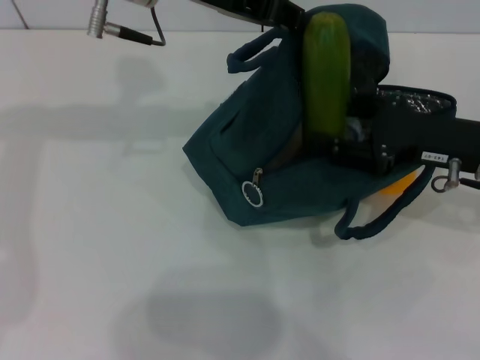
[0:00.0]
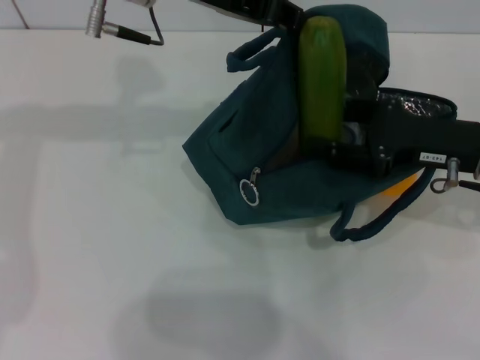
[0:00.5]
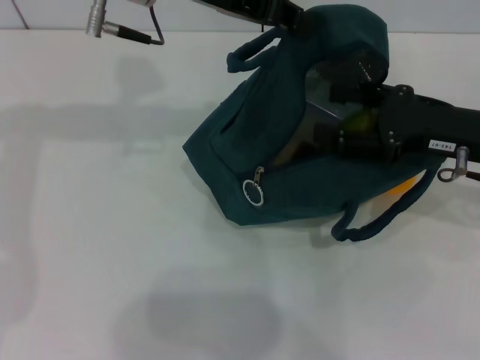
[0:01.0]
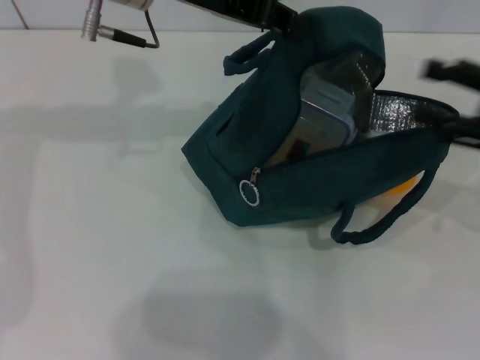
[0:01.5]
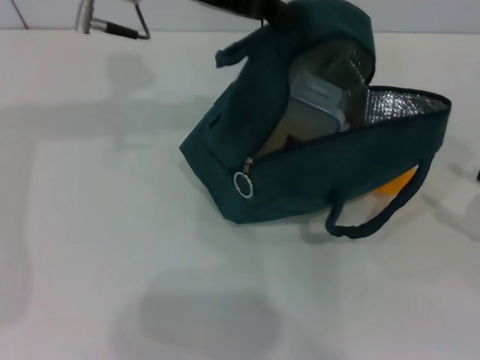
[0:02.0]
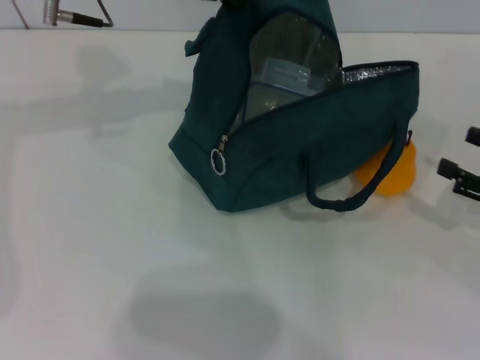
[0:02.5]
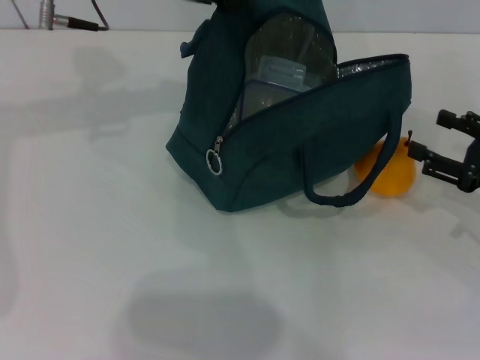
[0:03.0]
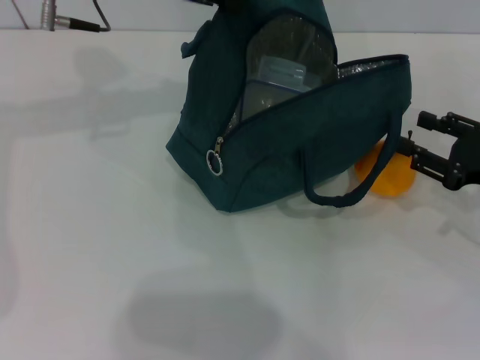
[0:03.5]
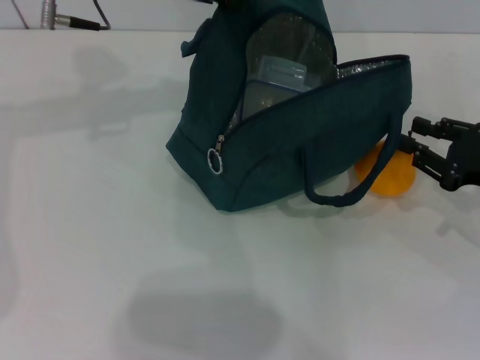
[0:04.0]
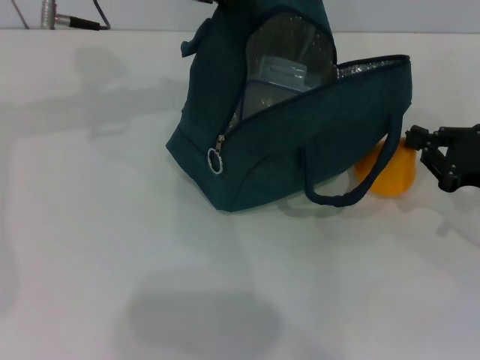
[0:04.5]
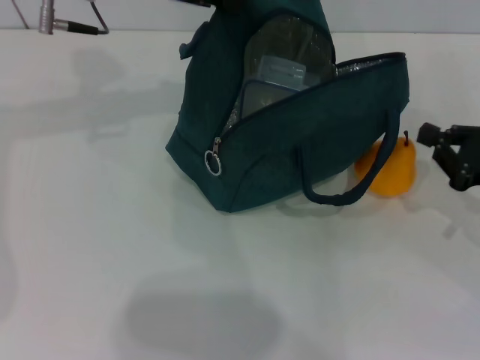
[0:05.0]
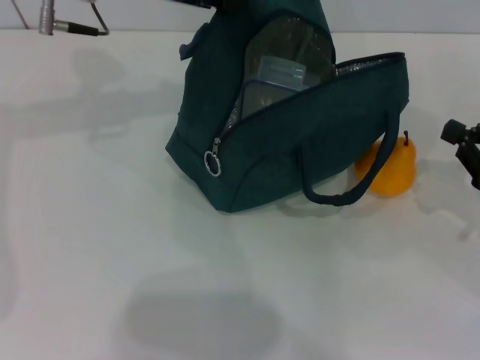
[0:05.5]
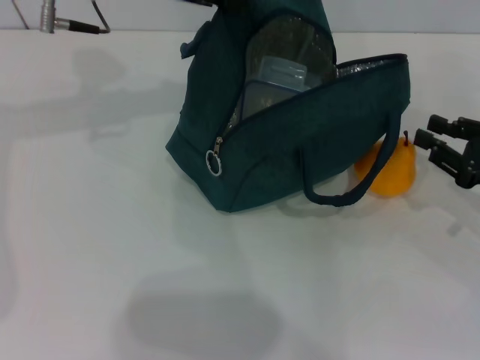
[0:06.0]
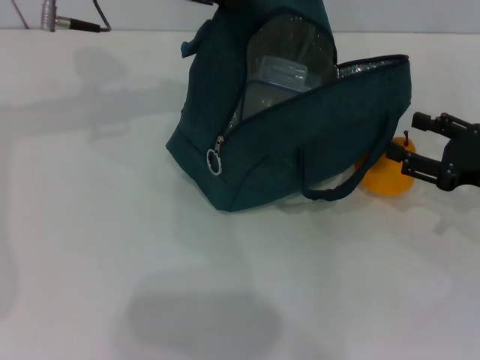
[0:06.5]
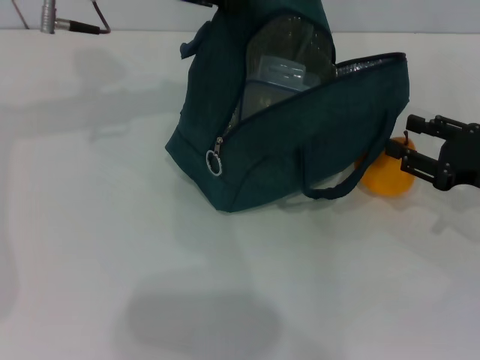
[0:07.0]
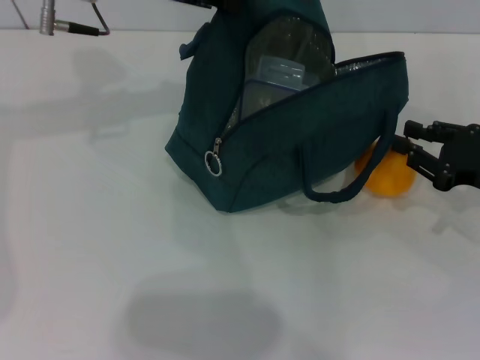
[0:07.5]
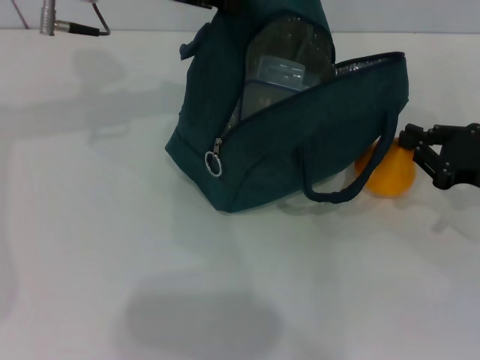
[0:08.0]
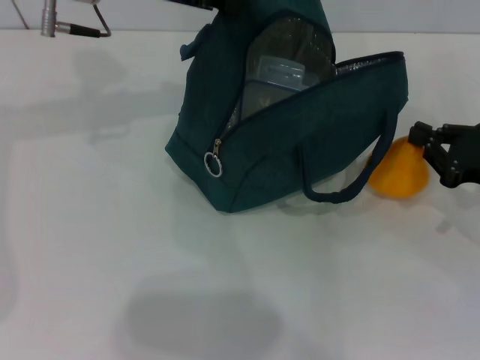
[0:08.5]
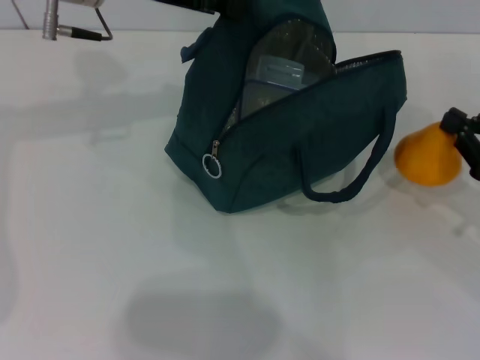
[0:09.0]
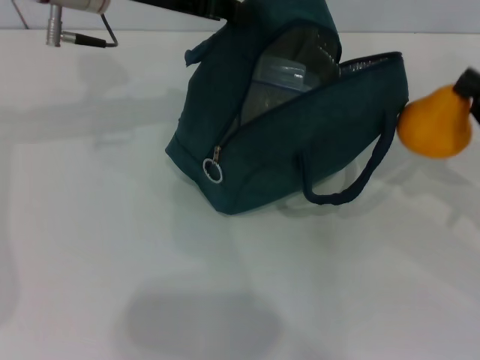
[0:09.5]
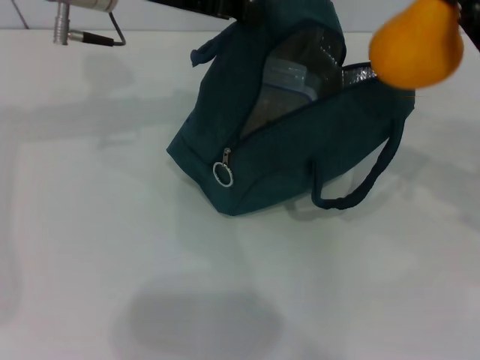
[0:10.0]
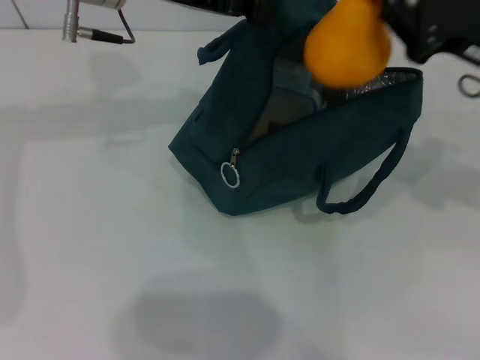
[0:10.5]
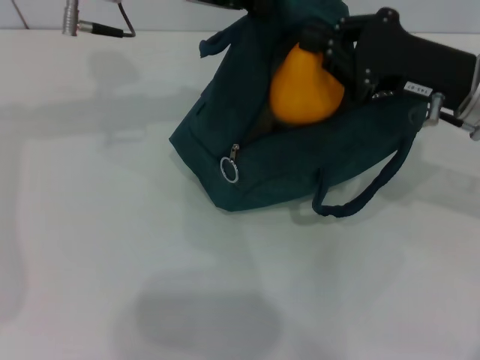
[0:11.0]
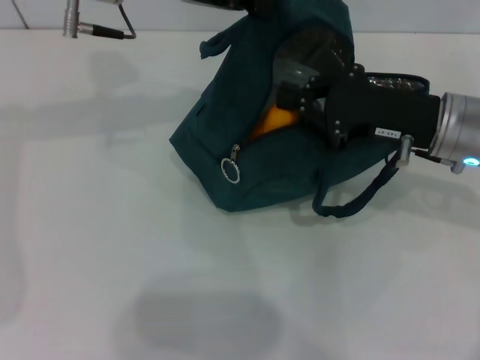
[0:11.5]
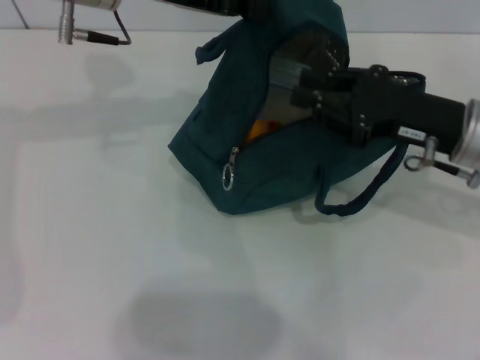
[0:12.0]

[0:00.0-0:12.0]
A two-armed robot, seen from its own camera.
Step, 0:01.5 to 0:08.0: Grab the pear with your right hand.
0:00.0 to 0:02.0: The right gripper shifts approximately 15 cm to the right and backward.
0:02.0 to 0:04.0: The right gripper travels to the left and forward by about 10 cm, and closes up.
0:04.0 to 0:06.0: The right gripper closes up.
0:06.0 to 0:08.0: The right gripper opens, then closes once more.
0:08.0 to 0:10.0: The right gripper travels upward by some 10 cm.
0:10.0 to 0:12.0: The right gripper moves to the left, about 10 cm.

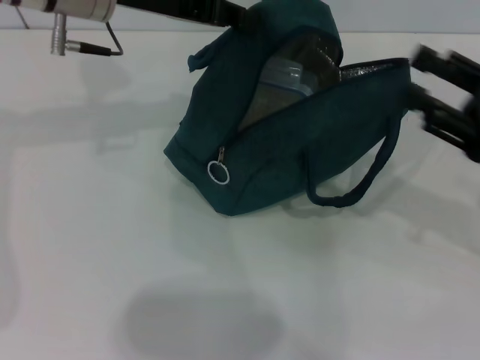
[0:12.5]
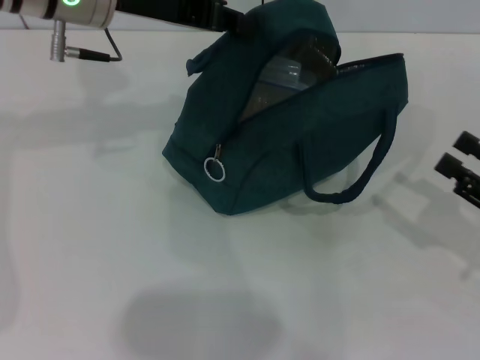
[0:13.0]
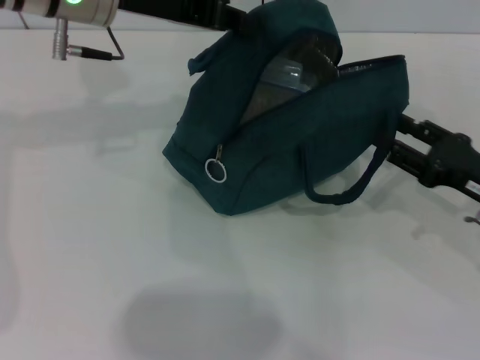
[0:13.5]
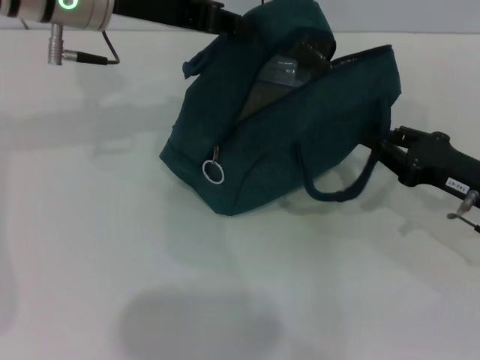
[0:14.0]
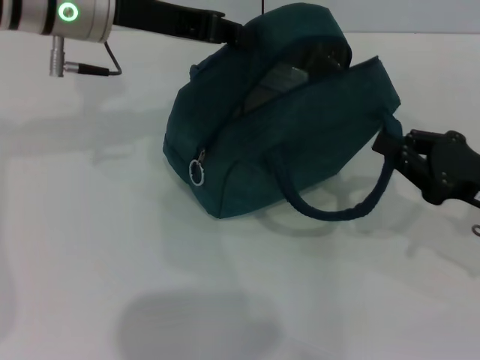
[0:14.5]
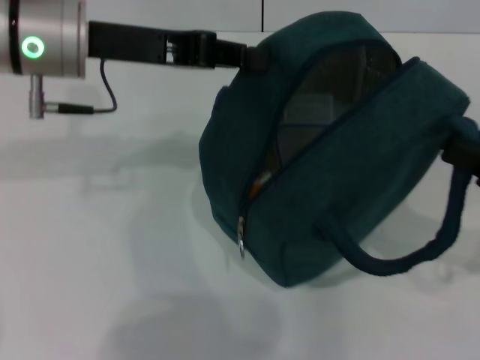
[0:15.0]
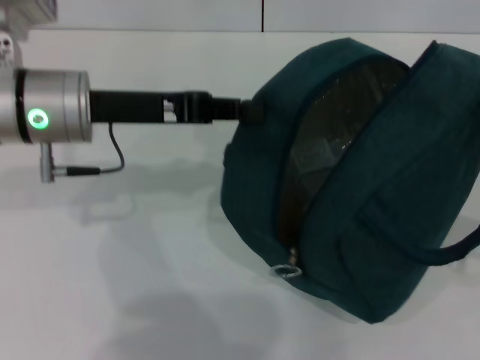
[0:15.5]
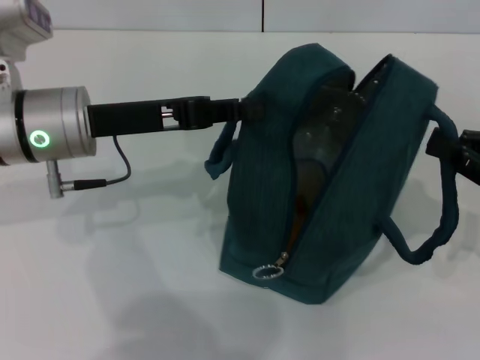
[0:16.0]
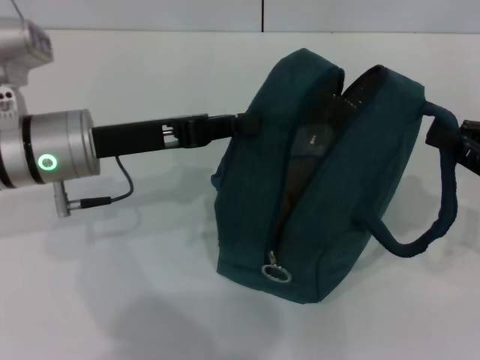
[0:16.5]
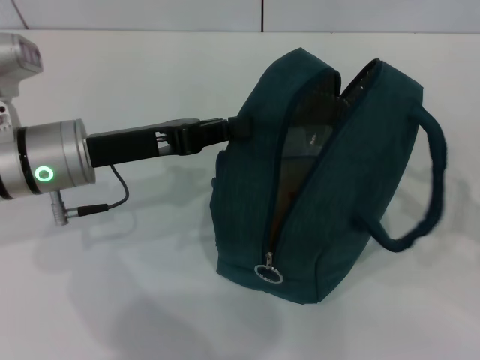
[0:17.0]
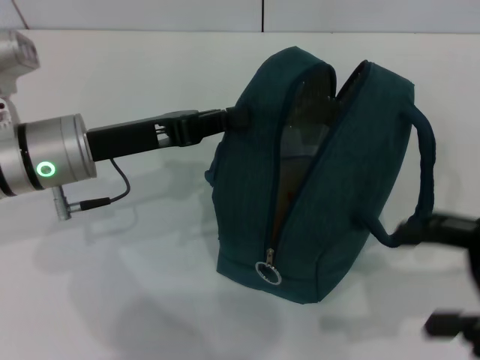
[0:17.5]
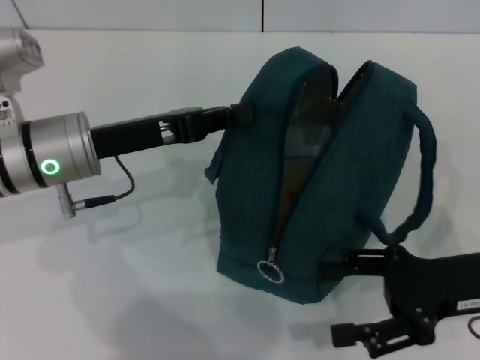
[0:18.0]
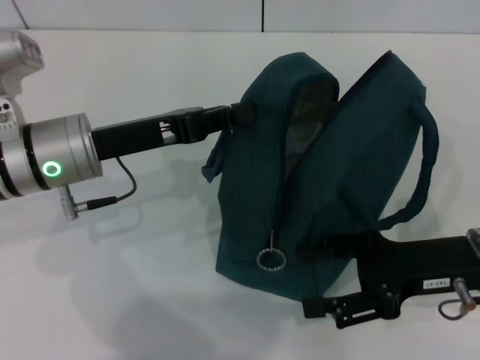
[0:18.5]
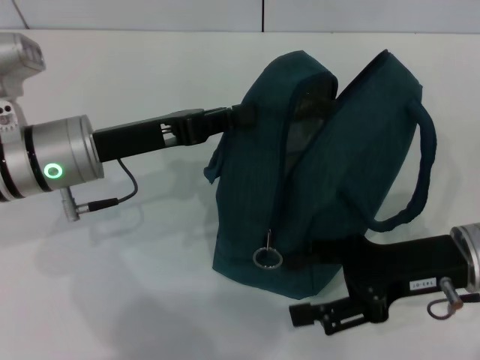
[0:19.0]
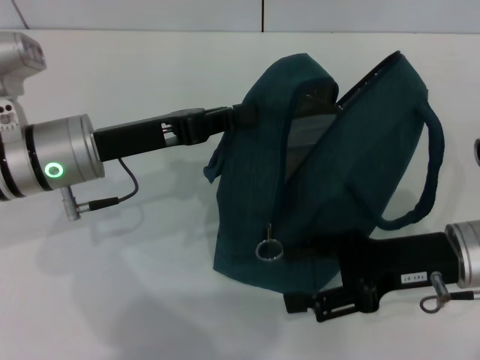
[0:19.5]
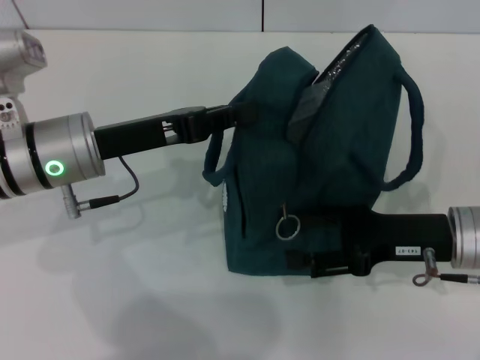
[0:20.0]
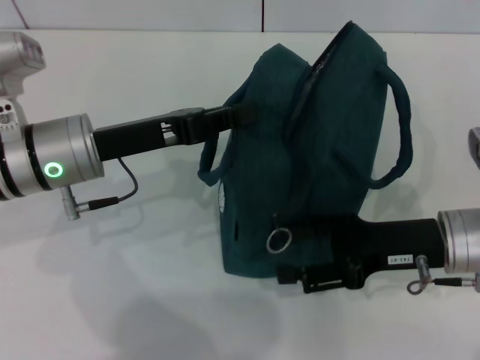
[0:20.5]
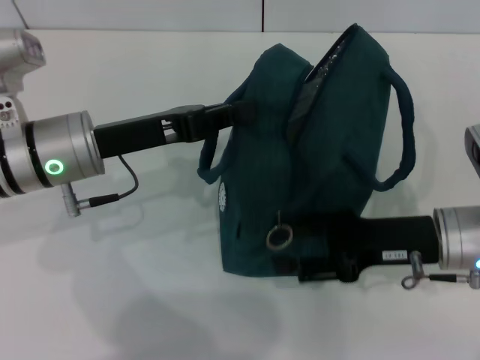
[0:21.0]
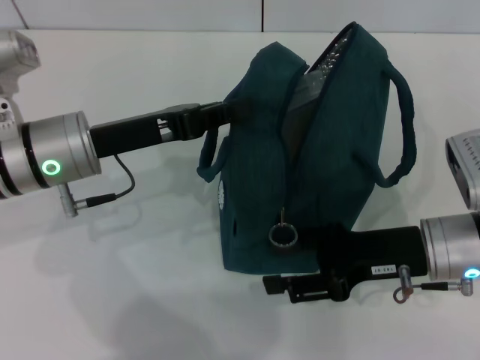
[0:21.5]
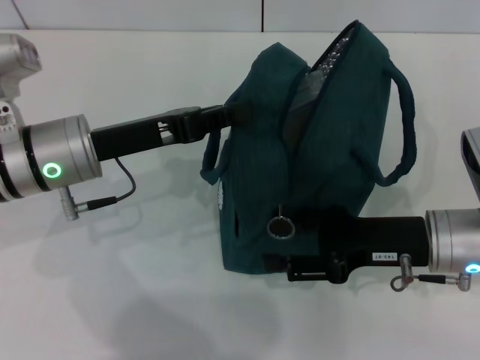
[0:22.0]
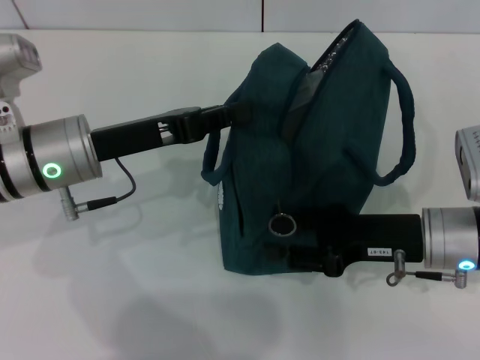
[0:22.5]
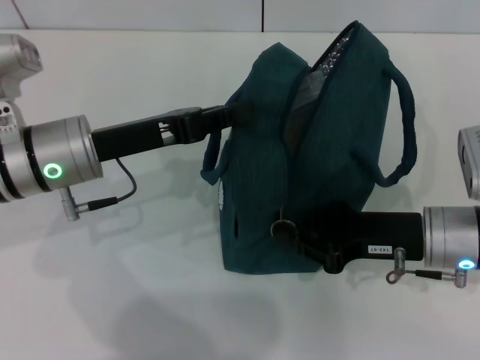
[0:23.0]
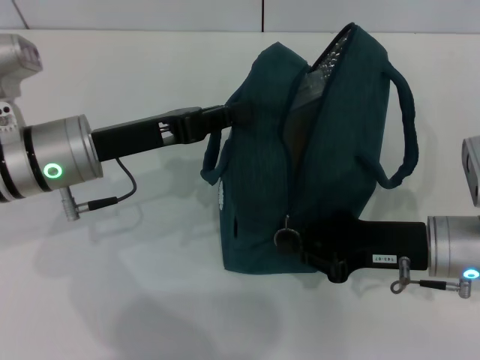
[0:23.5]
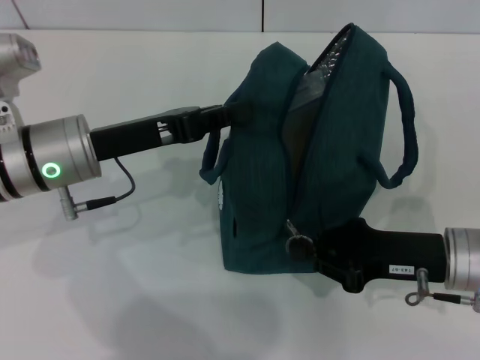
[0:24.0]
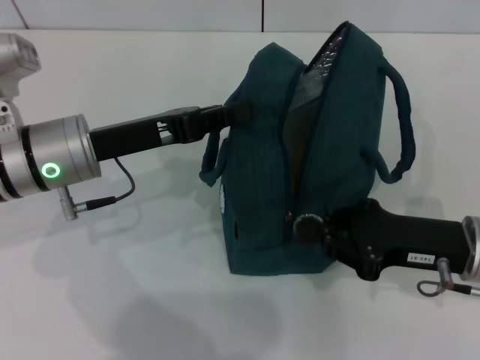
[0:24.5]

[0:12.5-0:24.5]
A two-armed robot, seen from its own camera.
Step, 0:12.5 to 0:16.5: Hold the lunch bag with your right hand.
0:12.5 to 0:14.5: The right gripper closes up.
0:14.5 to 0:16.5: The left gripper moves downward and backward, roughly 10 cm.
0:16.5 to 0:18.5: The right gripper travels to the left by about 10 cm, and opens its fingers.
0:18.5 to 0:22.5: The grippers stay close to where they were, moving slightly.
0:22.5 to 0:24.5: The right gripper closes.

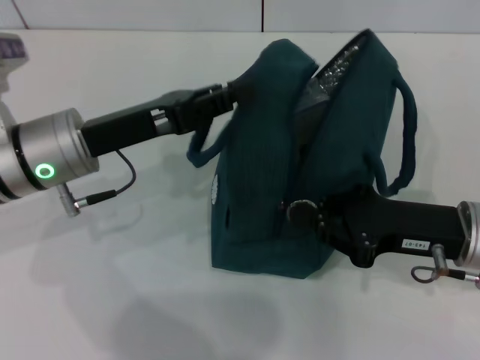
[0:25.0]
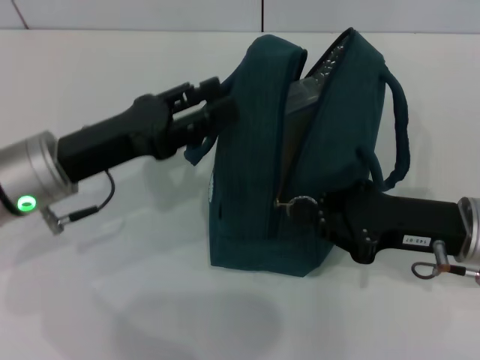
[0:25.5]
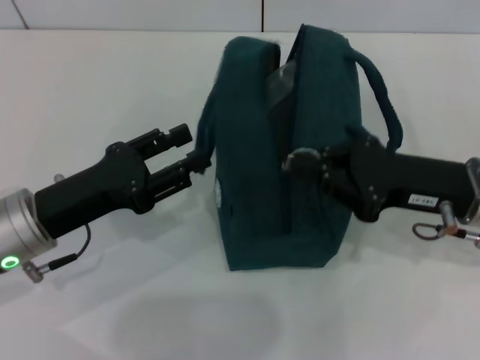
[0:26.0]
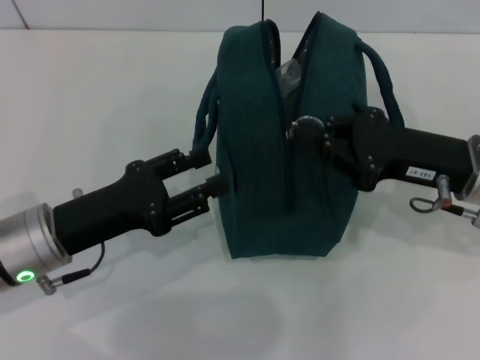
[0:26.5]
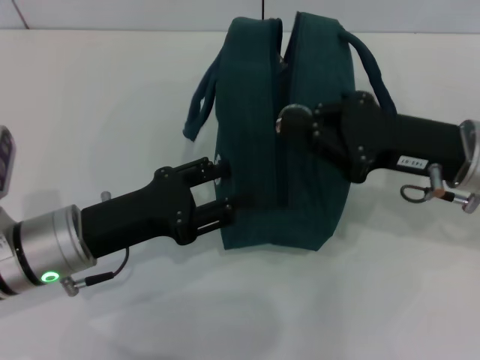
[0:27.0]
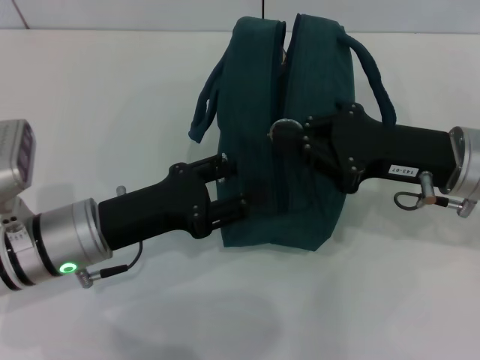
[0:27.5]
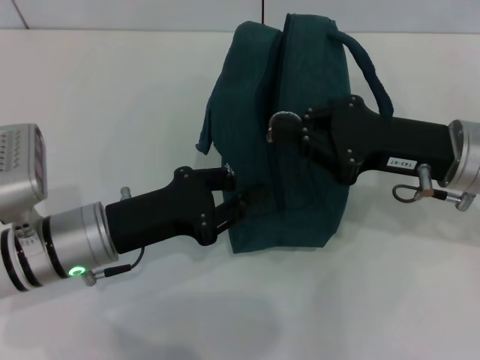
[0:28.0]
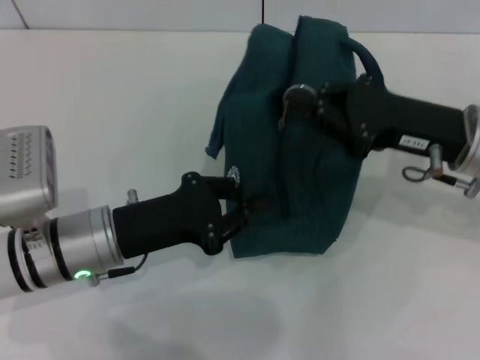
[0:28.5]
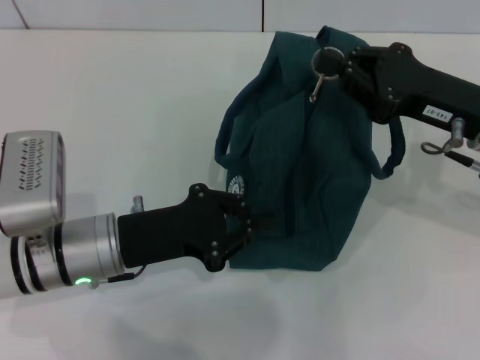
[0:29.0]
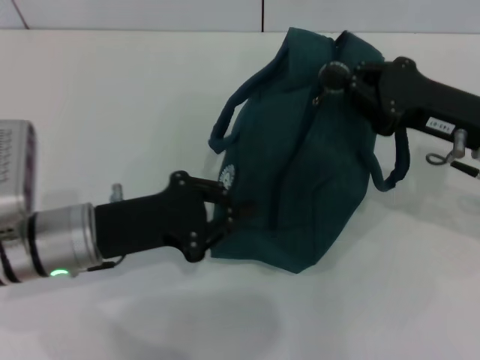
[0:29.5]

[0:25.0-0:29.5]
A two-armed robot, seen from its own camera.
0:25.0 to 0:27.0: The left gripper goes about 10 cm backward and downward, and opens its fingers, while the right gripper changes place by some 5 cm.
0:27.0 to 0:29.5: The left gripper closes up.
